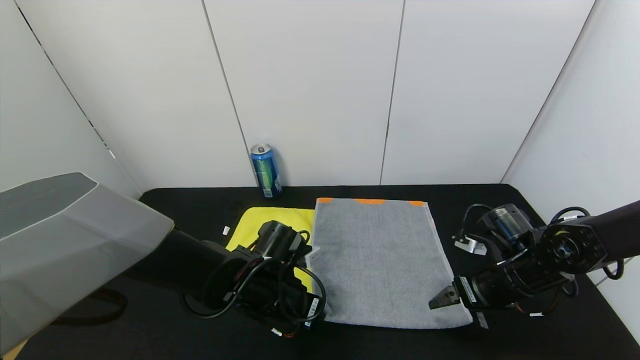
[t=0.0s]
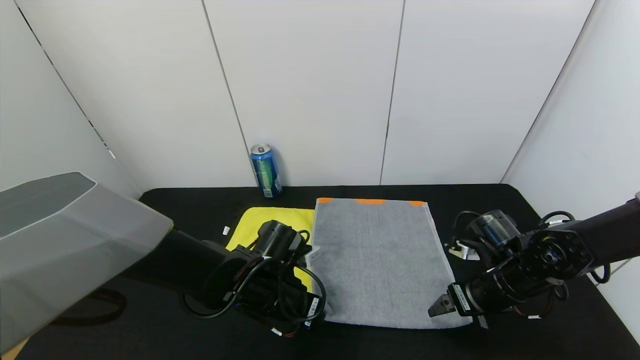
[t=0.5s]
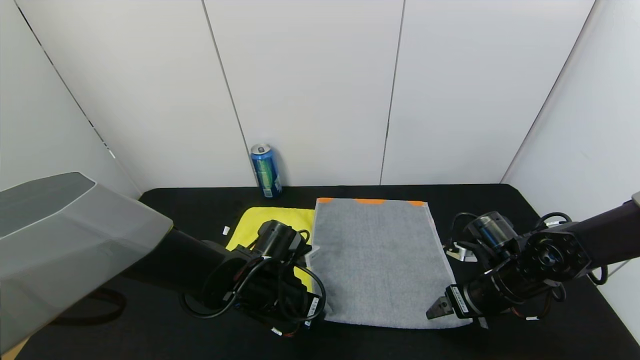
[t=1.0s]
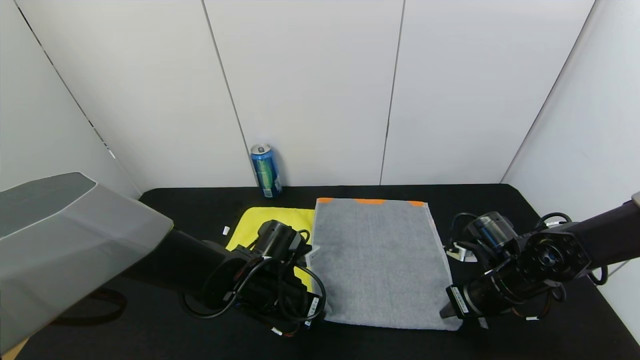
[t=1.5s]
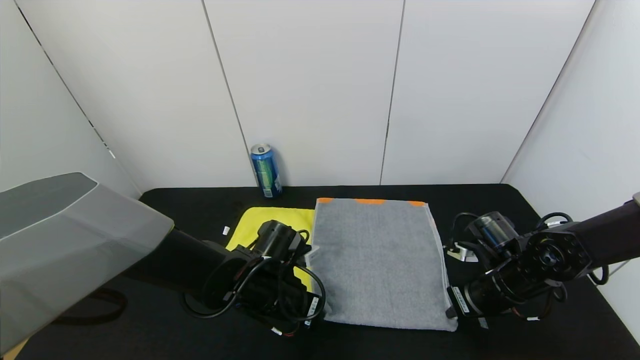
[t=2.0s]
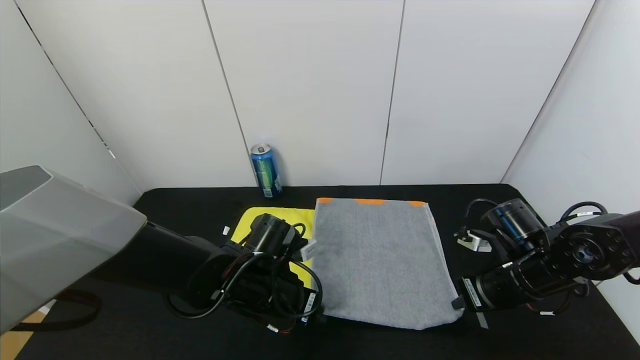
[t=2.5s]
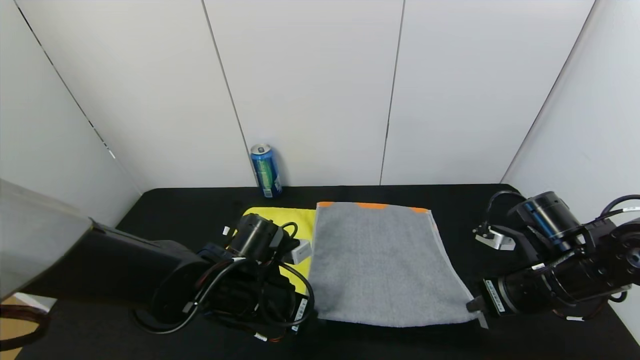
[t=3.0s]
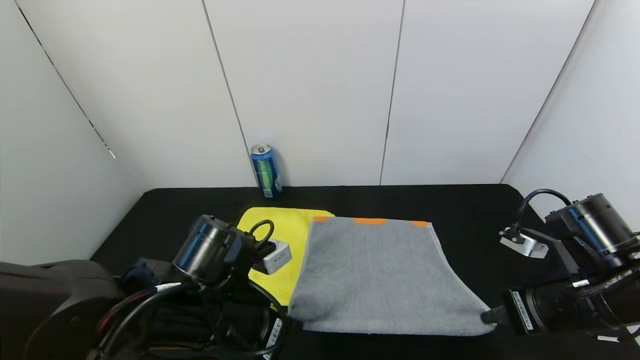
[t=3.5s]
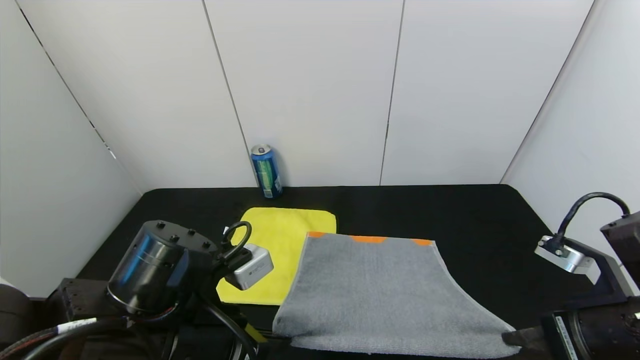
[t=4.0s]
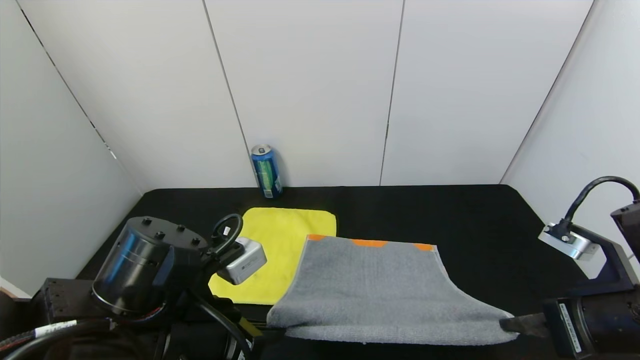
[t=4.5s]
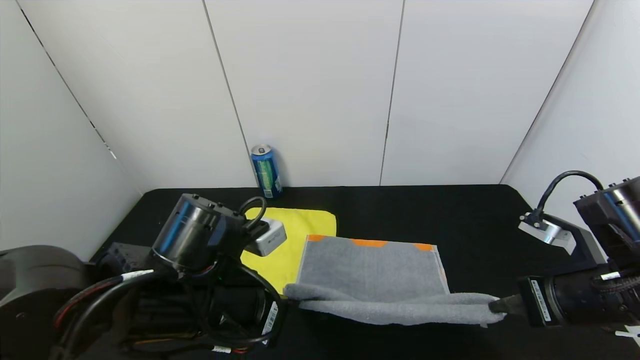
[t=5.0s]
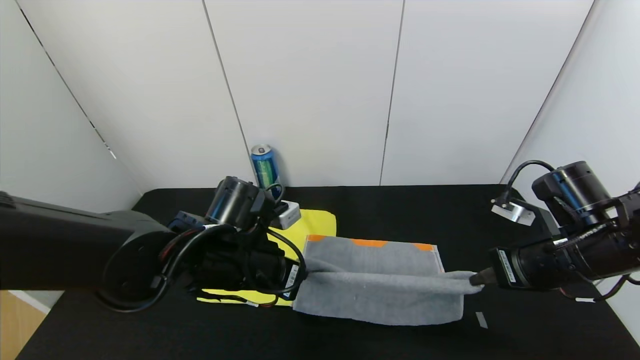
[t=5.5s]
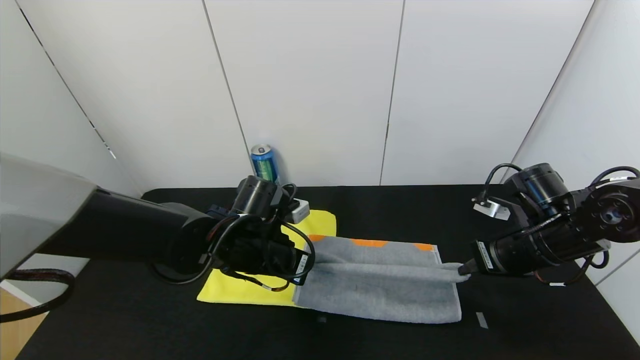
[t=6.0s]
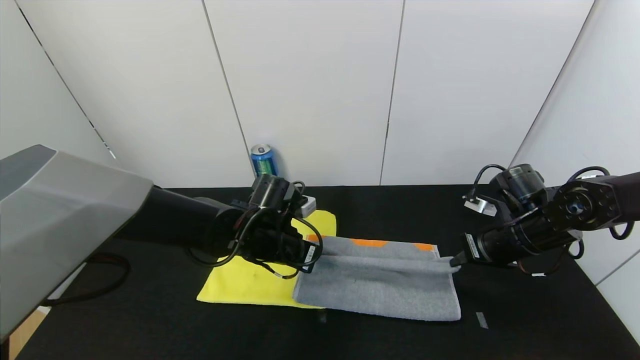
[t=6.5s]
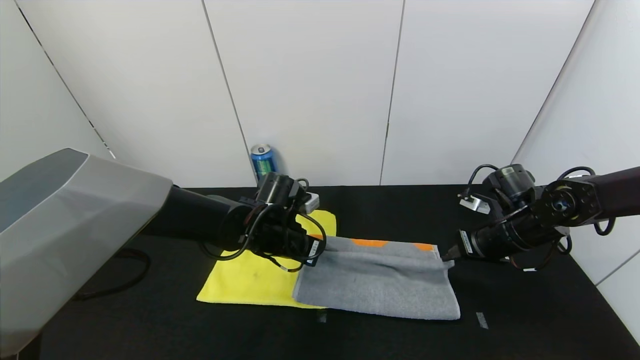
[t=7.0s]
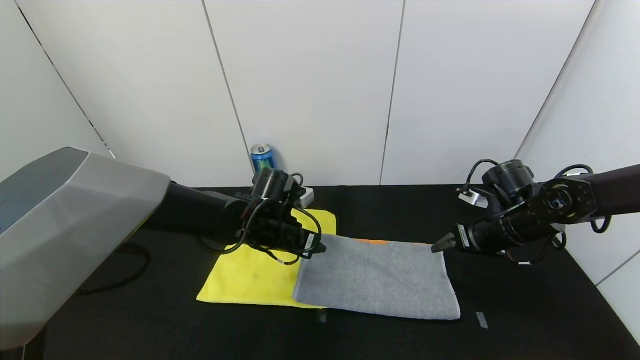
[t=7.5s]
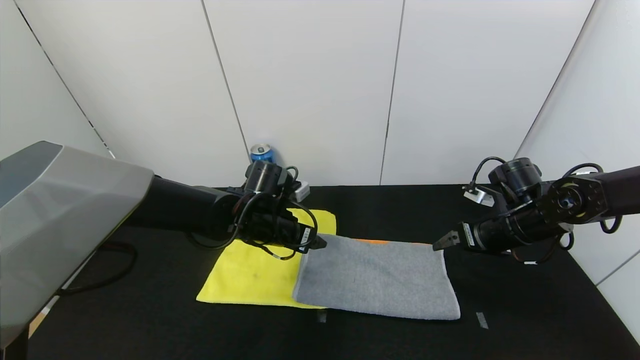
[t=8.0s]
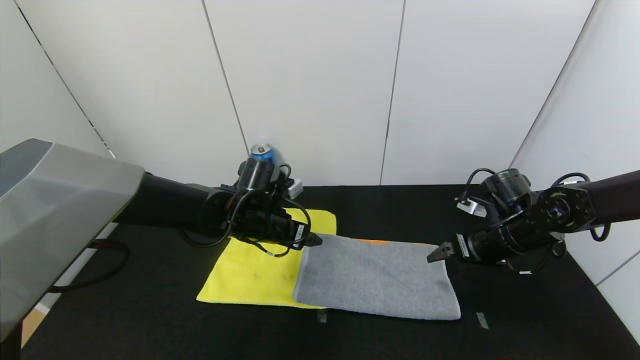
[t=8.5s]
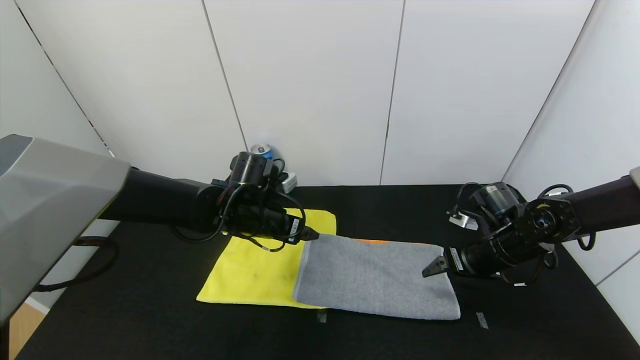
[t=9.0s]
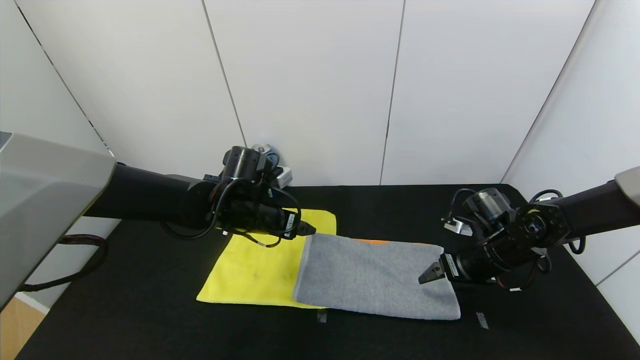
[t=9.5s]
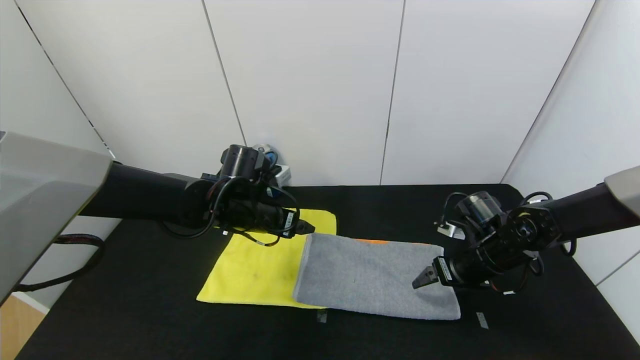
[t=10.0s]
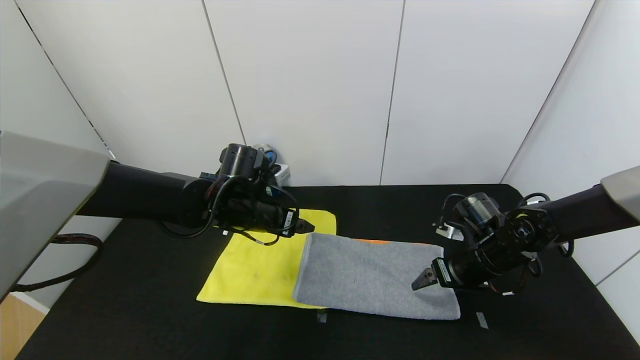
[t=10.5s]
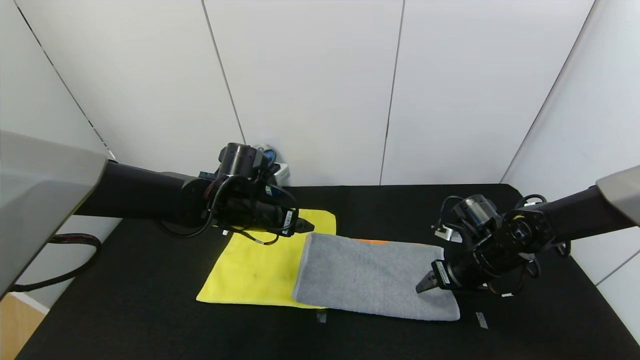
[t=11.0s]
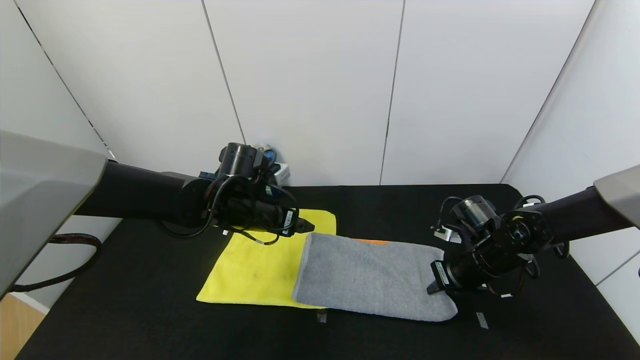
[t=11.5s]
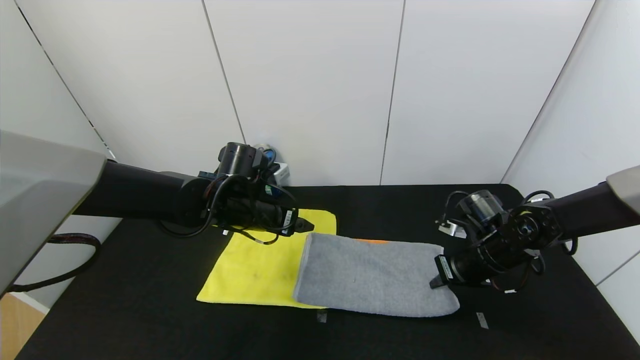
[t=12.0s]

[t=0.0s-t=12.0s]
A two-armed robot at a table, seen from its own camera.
Task of the whole recording: Use the gripper to fold the yellow towel and grey towel in half twice,then put the yellow towel on the grey towel.
Step, t=0.0s to t=7.0s: Fold the gray towel upwards with the left gripper.
Step, t=0.0s to t=7.0s: Fold the gray towel upwards with the right gripper.
t=0.0s to t=2.0s: The right gripper closes up.
t=2.0s to t=4.0s: The grippers both shift backward and upward by roughly 15 cm.
t=4.0s to t=6.0s: Both grippers move forward, some 15 cm.
t=6.0s to t=8.0s: The two grippers go some 5 cm forward. The left gripper opens, while the right gripper opens its fingers.
t=8.0s to t=10.0s: The right gripper moves downward, about 5 cm.
t=10.0s to t=12.0s: The right gripper closes up.

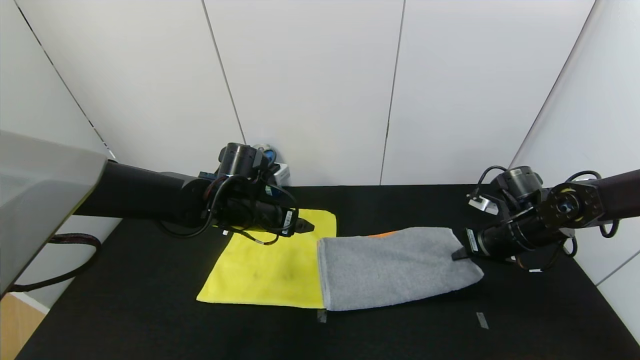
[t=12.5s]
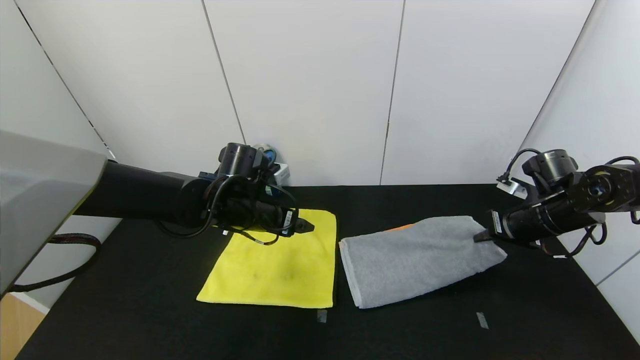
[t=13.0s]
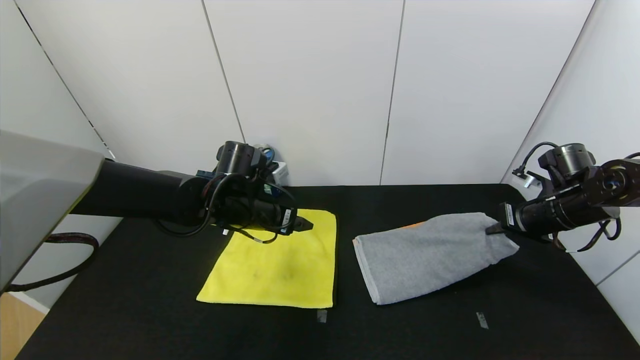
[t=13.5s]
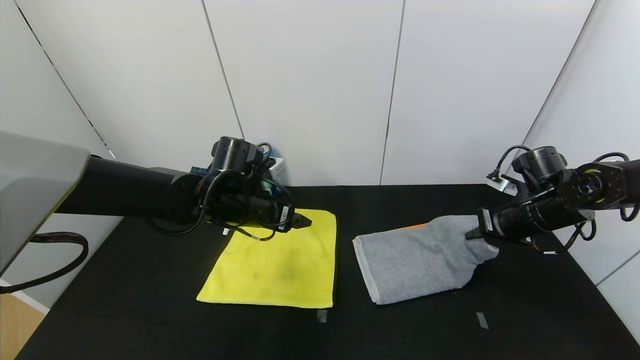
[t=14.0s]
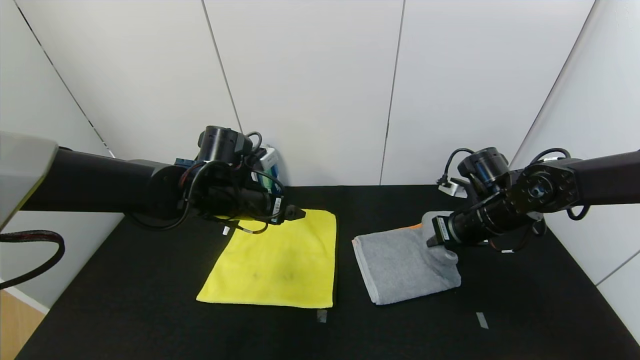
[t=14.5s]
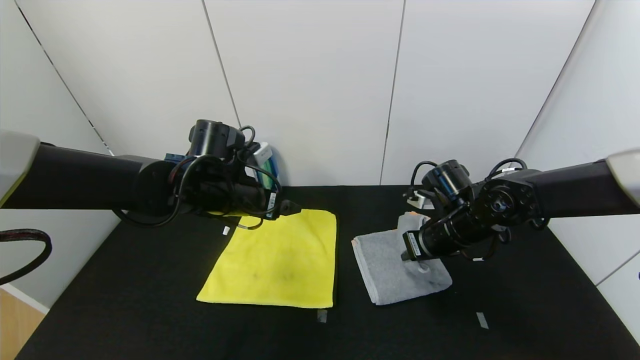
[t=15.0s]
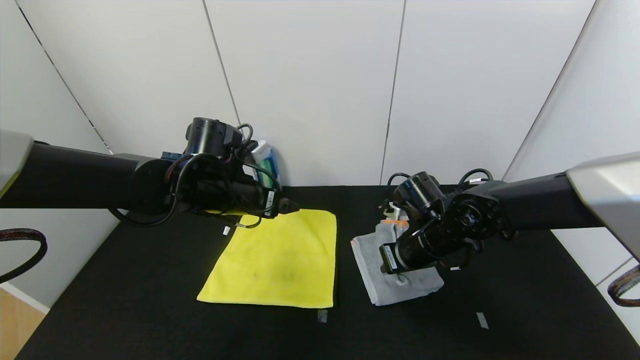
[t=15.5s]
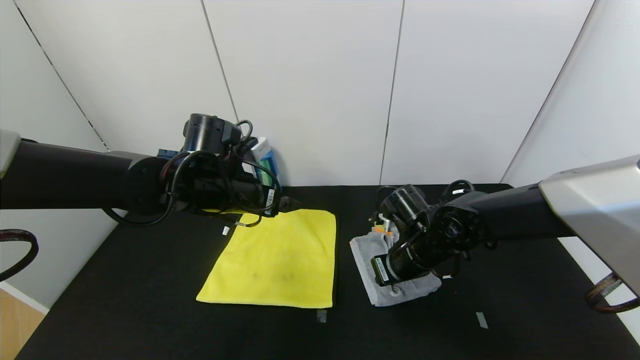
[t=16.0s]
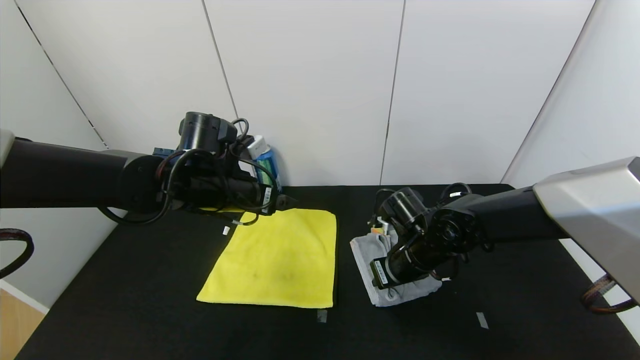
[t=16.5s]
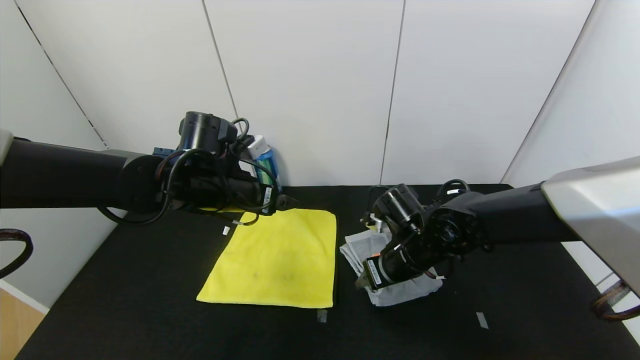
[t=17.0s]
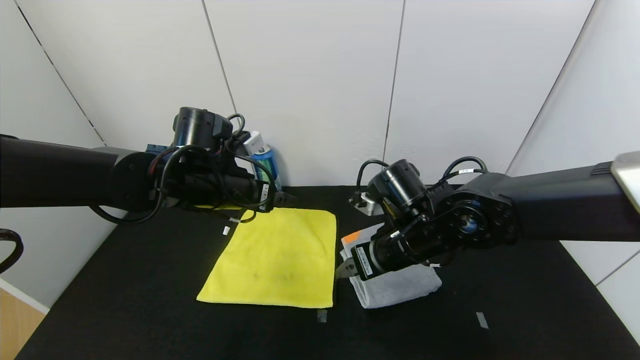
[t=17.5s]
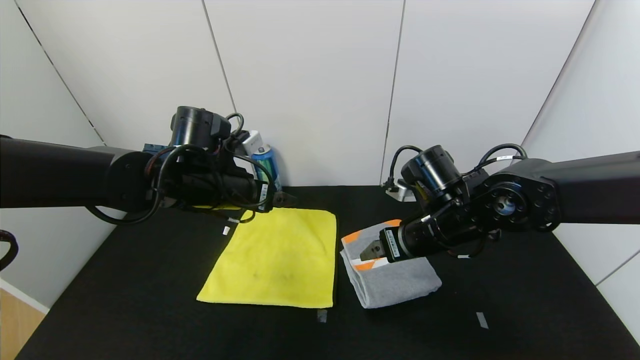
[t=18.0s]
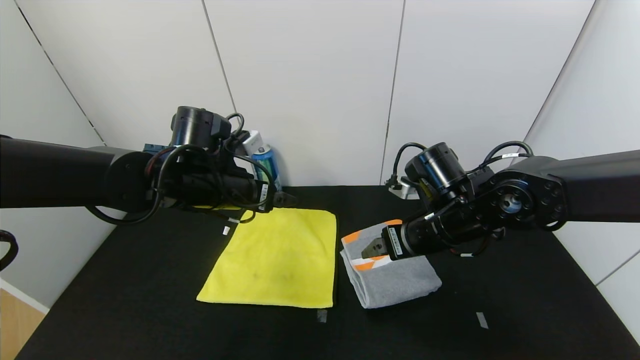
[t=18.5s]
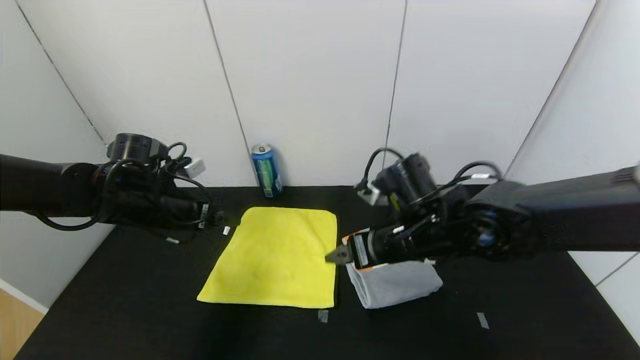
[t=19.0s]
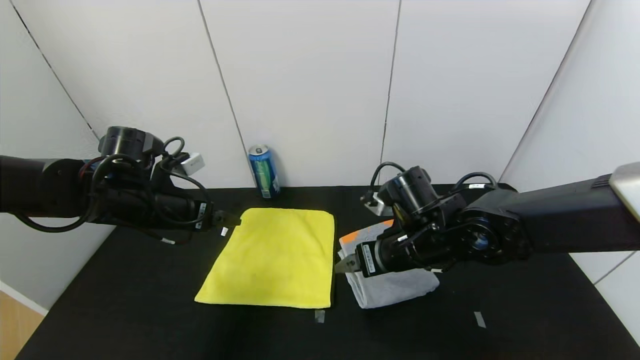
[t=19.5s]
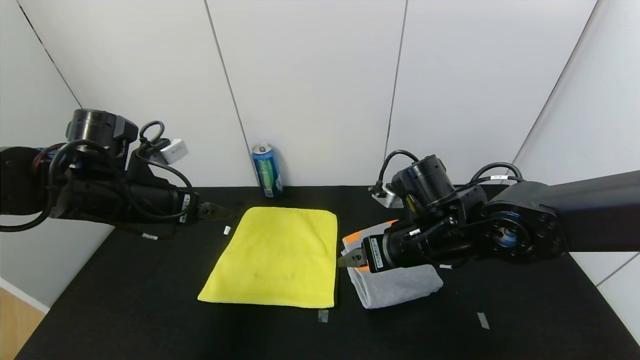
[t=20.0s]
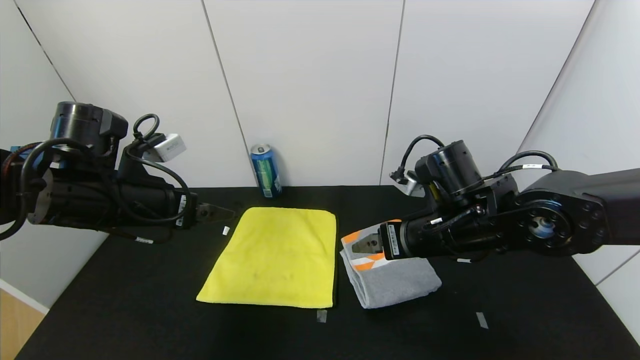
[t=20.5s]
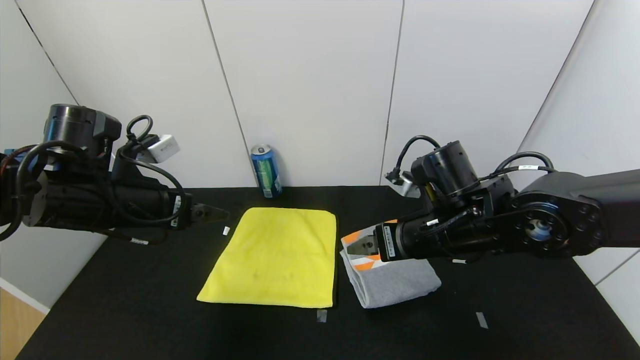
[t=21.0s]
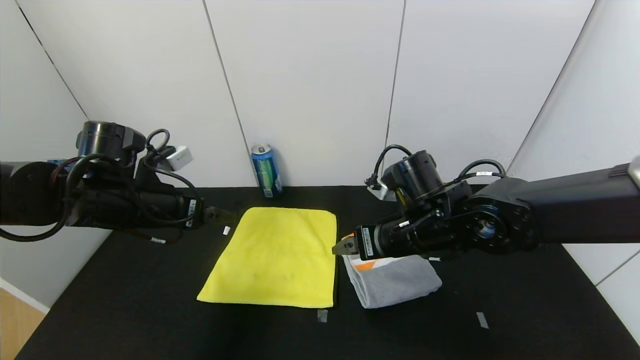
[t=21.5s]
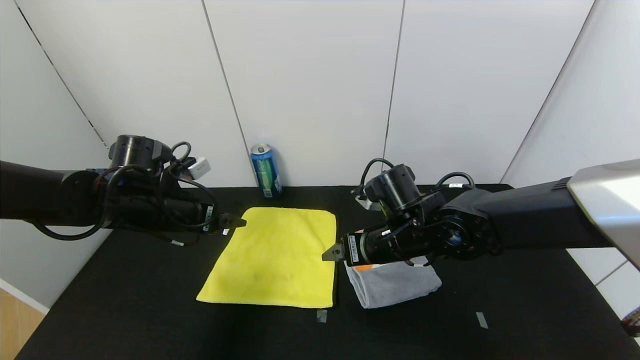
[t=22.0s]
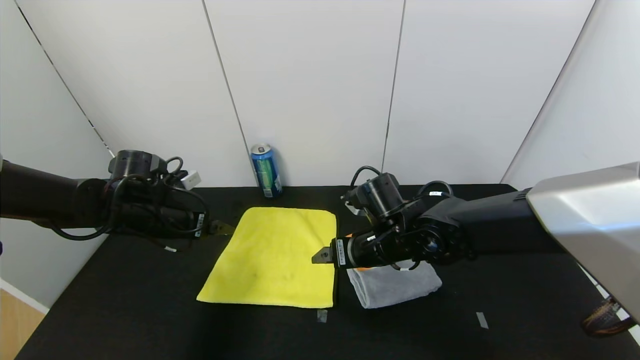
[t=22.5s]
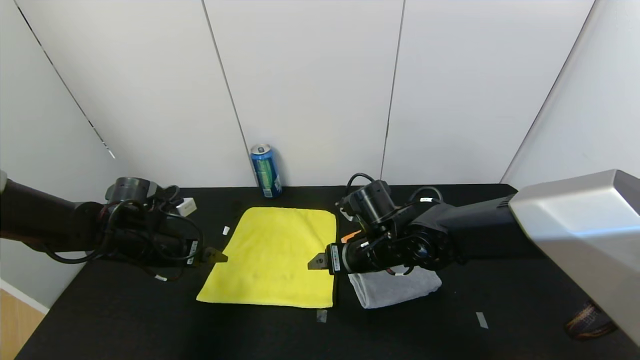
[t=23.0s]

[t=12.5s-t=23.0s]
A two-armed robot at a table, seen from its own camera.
Task of the whole recording: Use the gripper to fold the yellow towel and grey towel in half twice,then put the yellow towel on the grey towel.
Step, t=12.5s to t=17.0s: Fold the gray towel from right to left with right gripper.
t=12.5s to t=14.5s: The right gripper moves to the left, approximately 5 cm.
t=14.5s to t=16.5s: The right gripper is displaced to the left and downward by roughly 10 cm.
t=16.5s to t=19.0s: The right gripper travels upward by roughly 10 cm, and opens up.
t=19.0s to t=21.0s: The left gripper heads to the left and backward, covering roughly 10 cm.
t=21.0s to t=23.0s: The right gripper is displaced to the left and downward by about 10 cm, while the left gripper goes about 10 cm downward.
